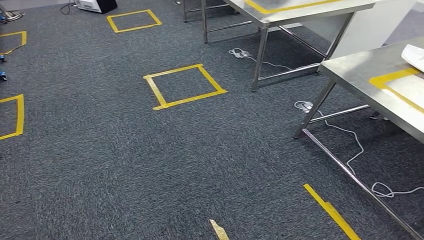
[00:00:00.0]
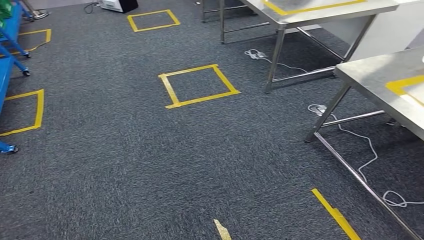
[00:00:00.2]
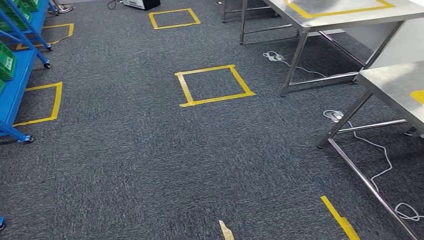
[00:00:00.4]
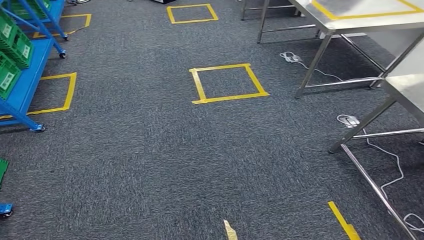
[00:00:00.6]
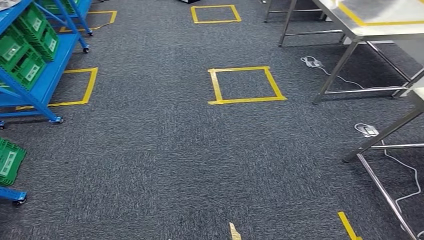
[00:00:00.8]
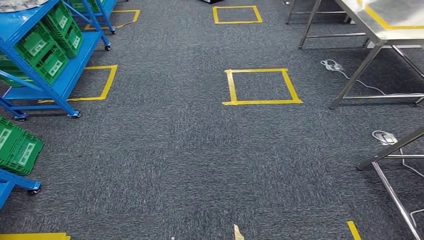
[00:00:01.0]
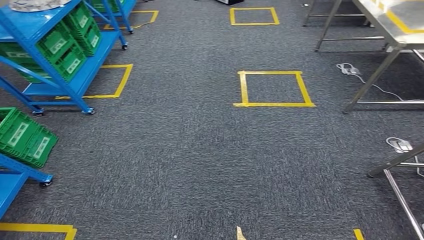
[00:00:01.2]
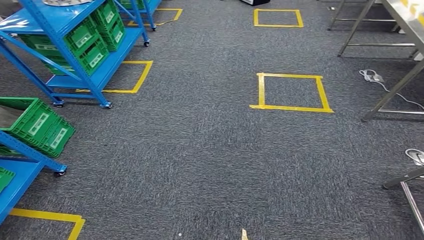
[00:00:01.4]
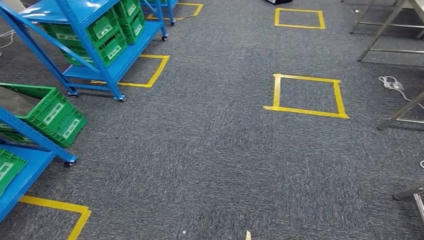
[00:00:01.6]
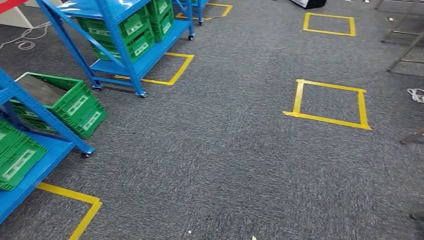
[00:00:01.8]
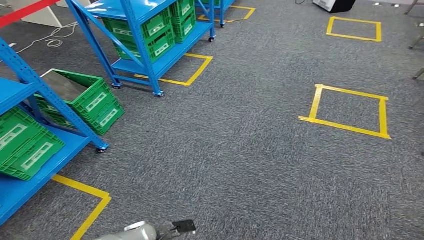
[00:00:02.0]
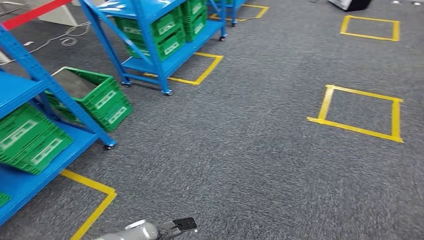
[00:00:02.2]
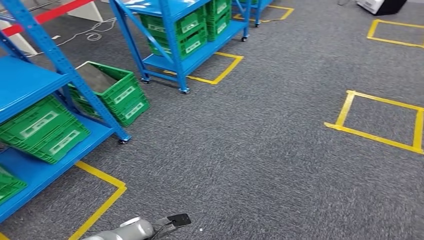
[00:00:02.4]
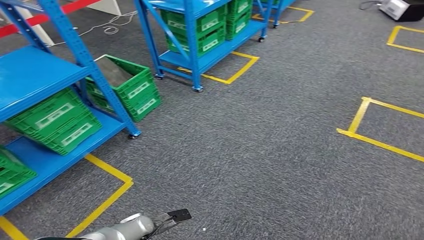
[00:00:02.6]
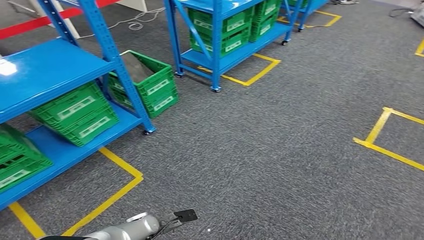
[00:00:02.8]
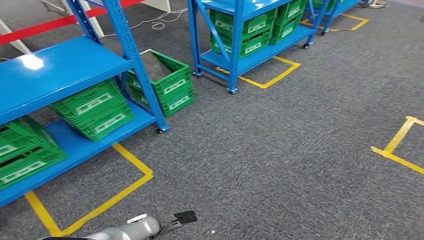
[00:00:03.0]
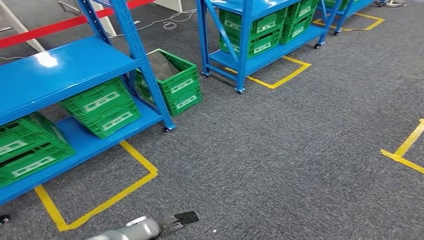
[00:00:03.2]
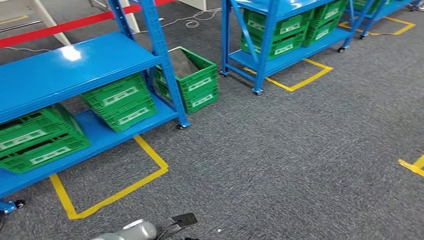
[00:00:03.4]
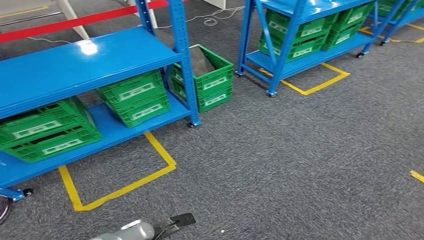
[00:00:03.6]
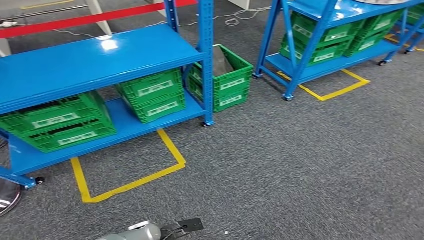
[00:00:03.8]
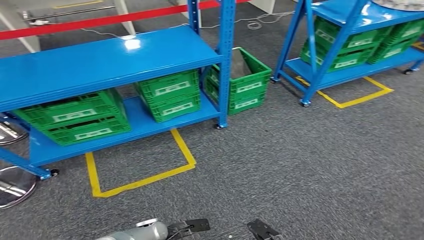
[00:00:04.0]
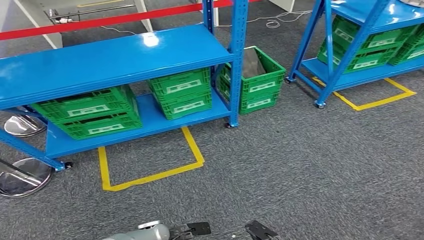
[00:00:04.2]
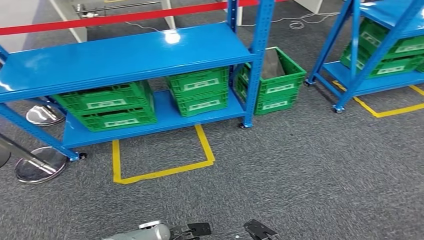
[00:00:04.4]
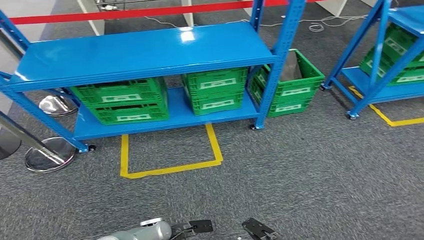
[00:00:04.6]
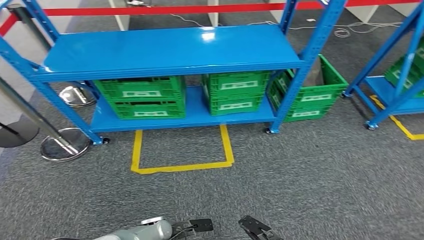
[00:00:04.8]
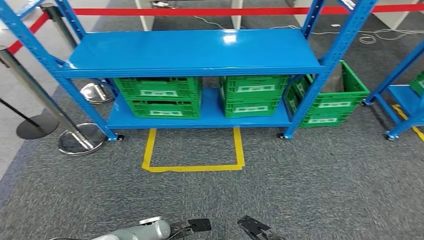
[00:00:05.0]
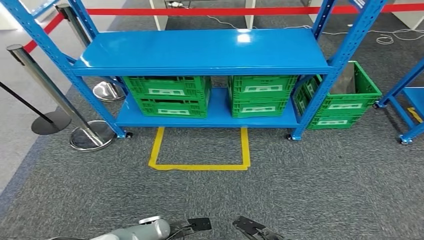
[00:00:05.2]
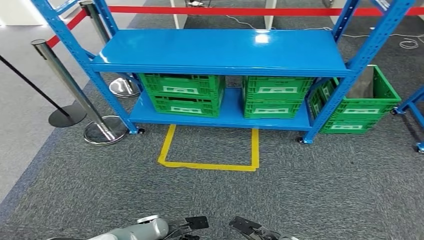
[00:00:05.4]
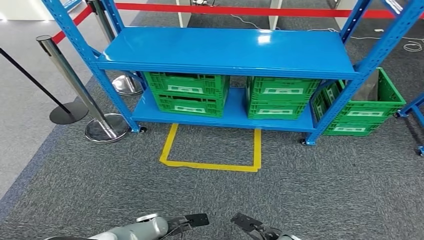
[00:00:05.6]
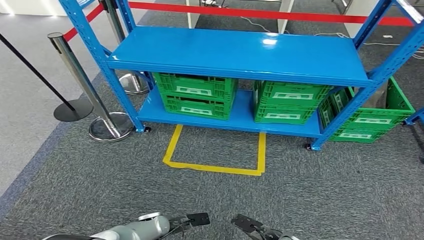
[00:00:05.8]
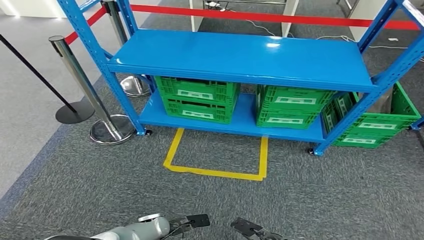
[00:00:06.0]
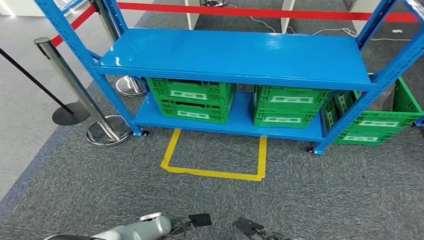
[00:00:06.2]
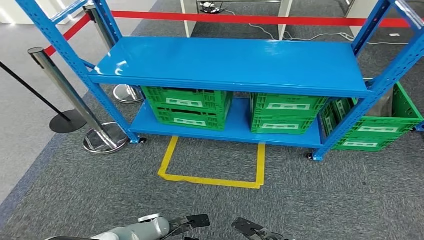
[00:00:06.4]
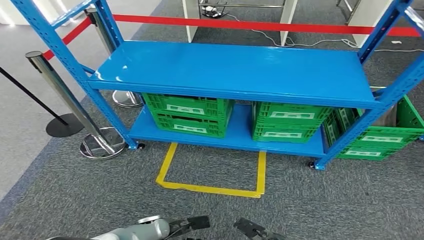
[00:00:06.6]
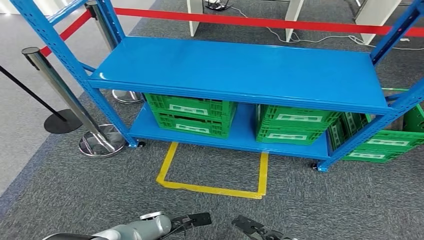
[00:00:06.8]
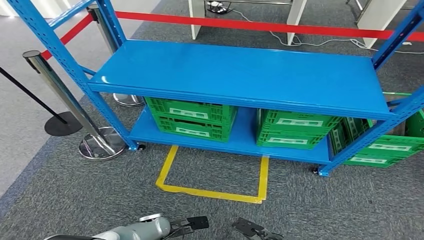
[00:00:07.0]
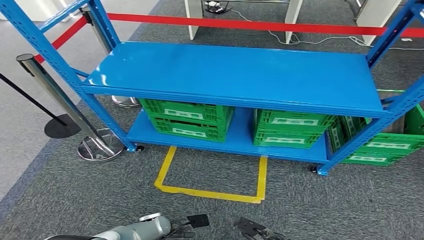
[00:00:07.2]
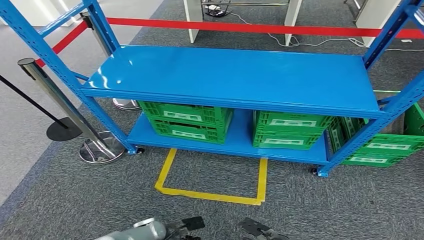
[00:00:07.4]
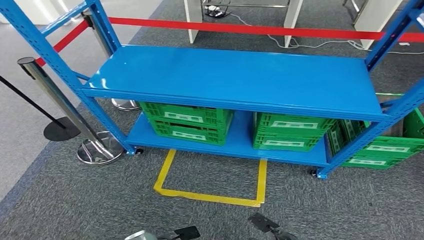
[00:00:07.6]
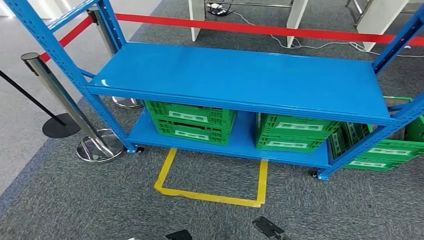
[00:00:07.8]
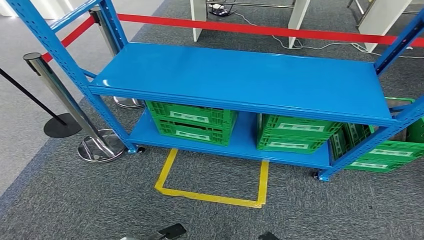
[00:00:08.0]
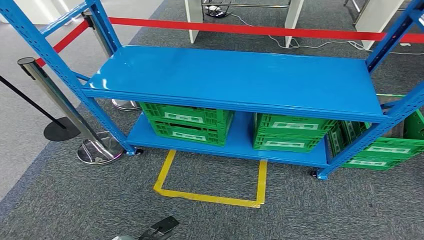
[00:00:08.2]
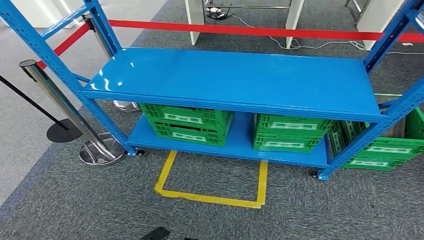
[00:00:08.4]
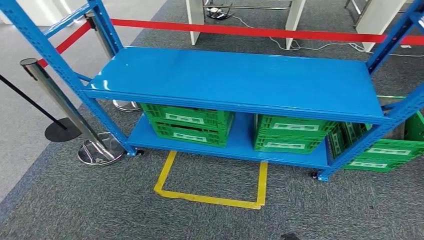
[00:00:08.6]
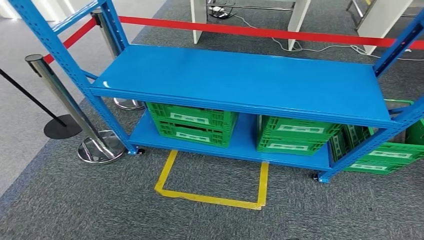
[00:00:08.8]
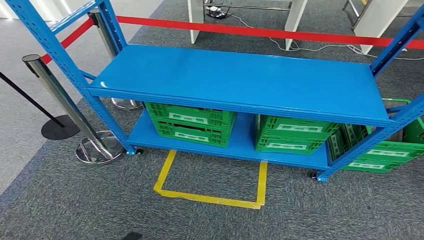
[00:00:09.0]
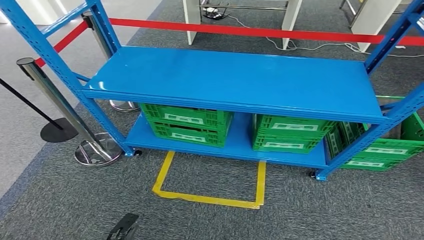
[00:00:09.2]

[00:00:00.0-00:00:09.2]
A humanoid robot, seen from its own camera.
Step, 00:00:00.0 to 00:00:09.2: Move to the initial position at the workbench.
00:00:07.6 to 00:00:09.2: The left hand travels to the left and backward by some 15 cm. Meanwhile the right hand heads backward, covering some 20 cm.
